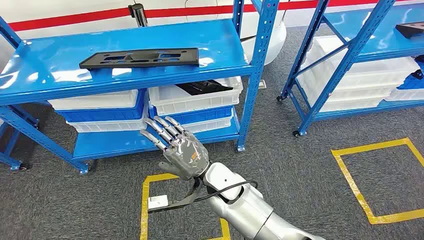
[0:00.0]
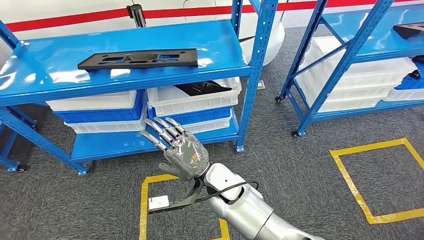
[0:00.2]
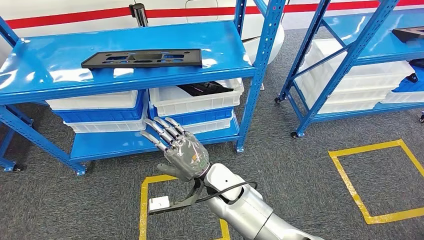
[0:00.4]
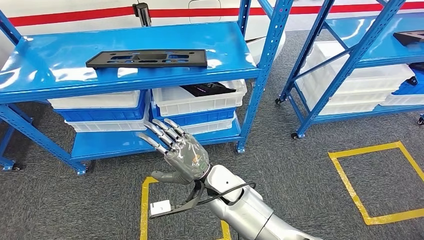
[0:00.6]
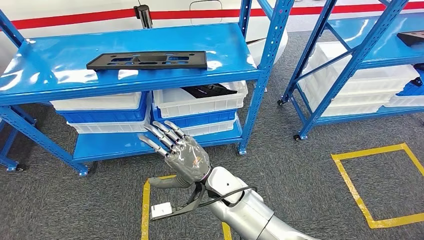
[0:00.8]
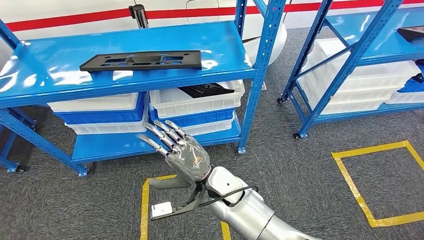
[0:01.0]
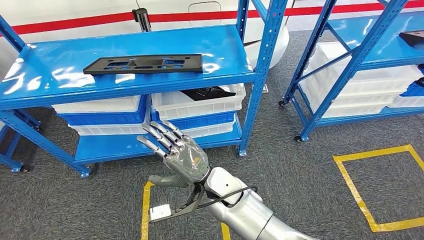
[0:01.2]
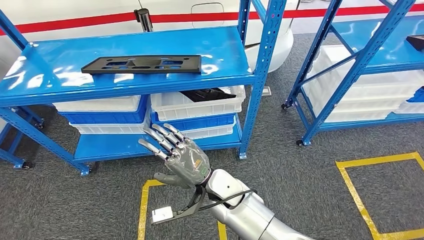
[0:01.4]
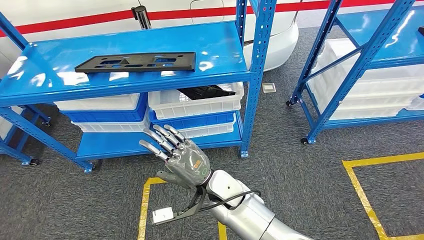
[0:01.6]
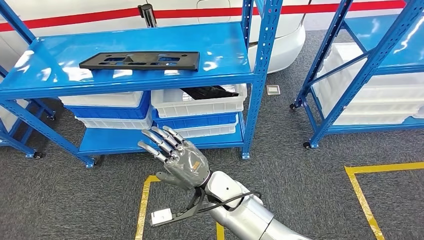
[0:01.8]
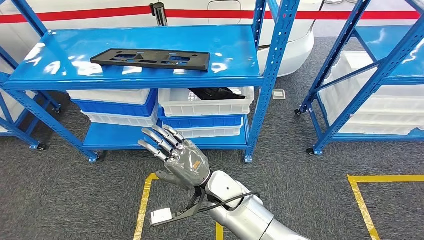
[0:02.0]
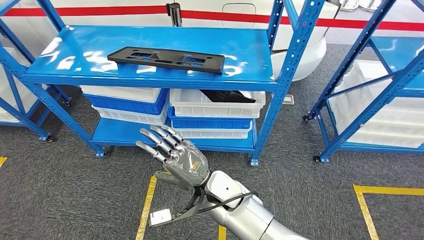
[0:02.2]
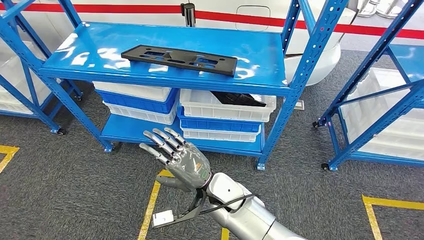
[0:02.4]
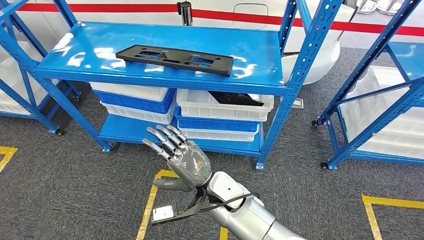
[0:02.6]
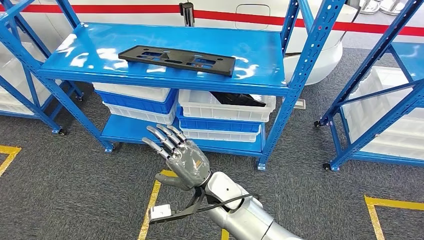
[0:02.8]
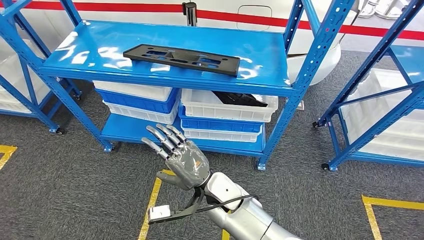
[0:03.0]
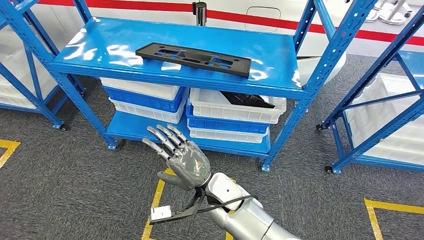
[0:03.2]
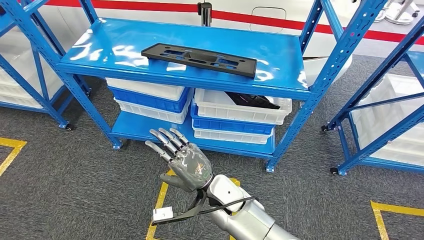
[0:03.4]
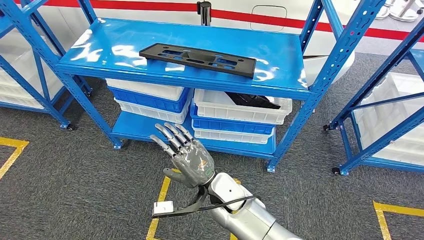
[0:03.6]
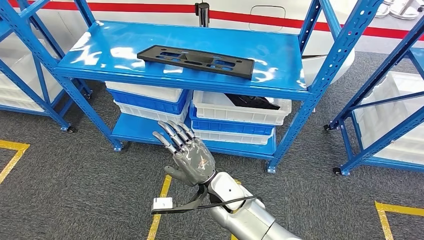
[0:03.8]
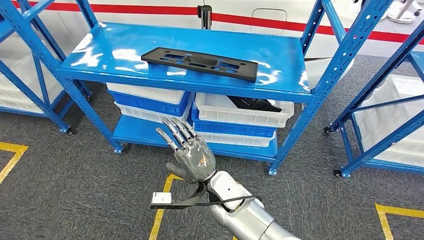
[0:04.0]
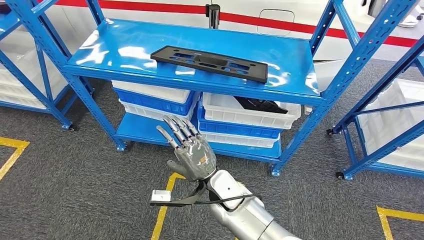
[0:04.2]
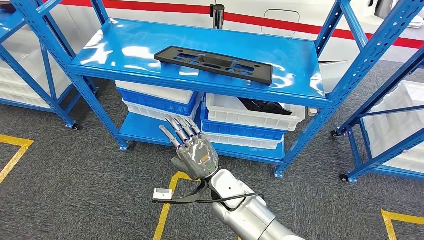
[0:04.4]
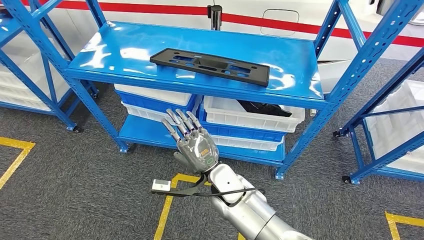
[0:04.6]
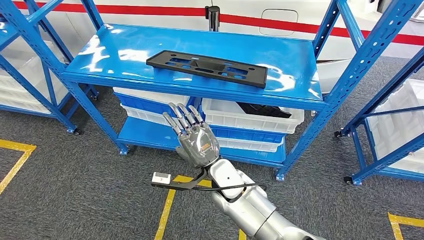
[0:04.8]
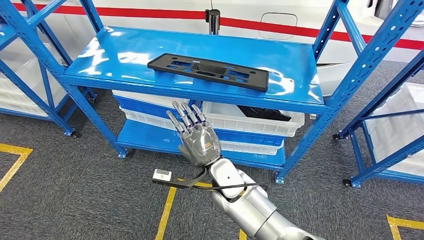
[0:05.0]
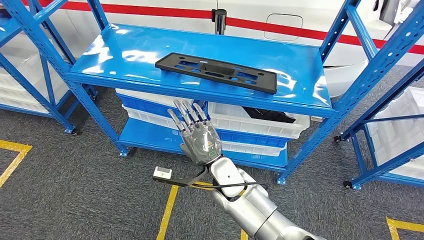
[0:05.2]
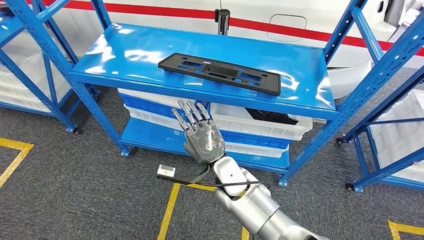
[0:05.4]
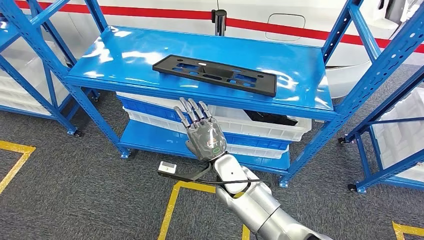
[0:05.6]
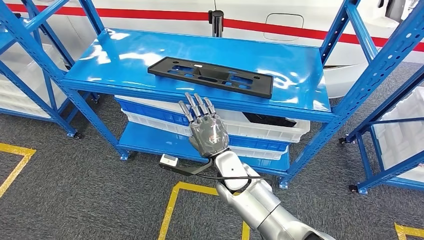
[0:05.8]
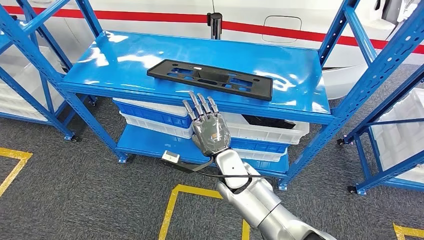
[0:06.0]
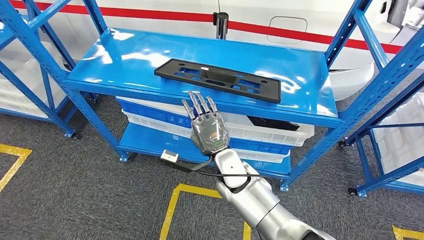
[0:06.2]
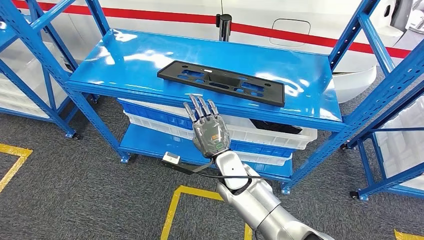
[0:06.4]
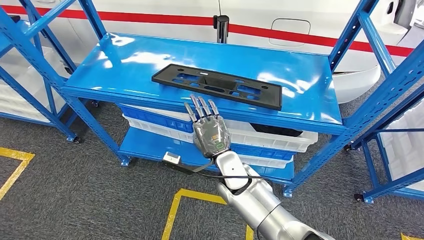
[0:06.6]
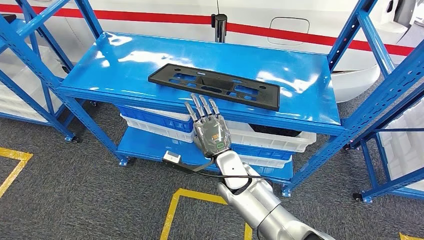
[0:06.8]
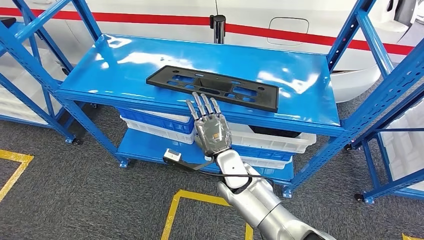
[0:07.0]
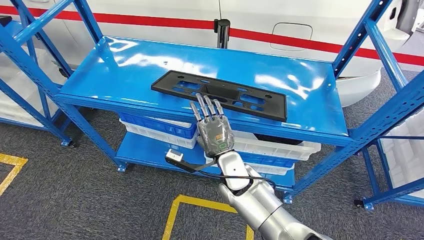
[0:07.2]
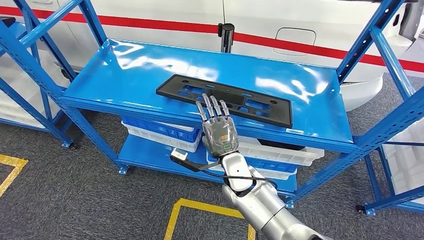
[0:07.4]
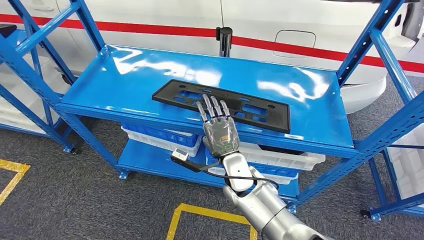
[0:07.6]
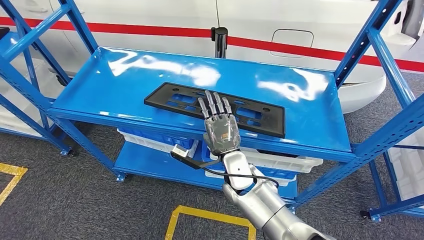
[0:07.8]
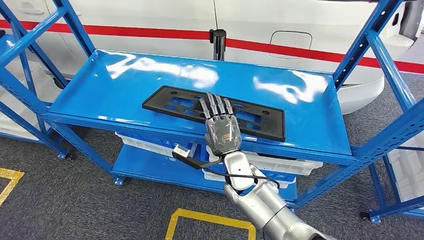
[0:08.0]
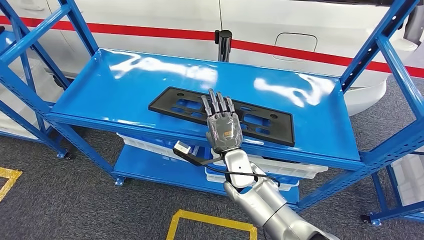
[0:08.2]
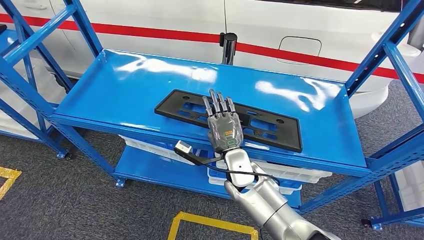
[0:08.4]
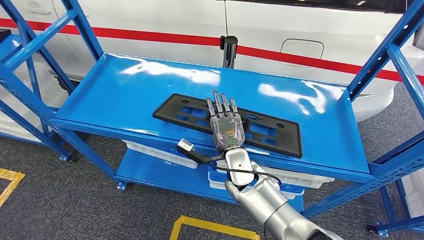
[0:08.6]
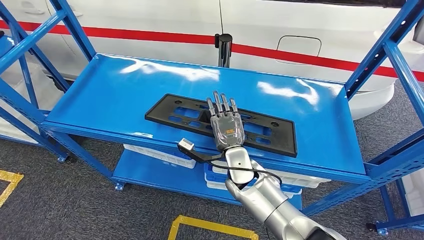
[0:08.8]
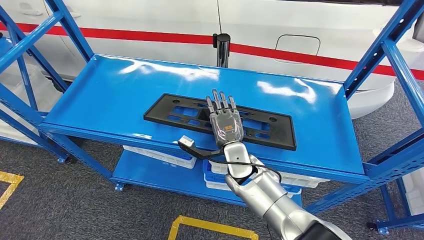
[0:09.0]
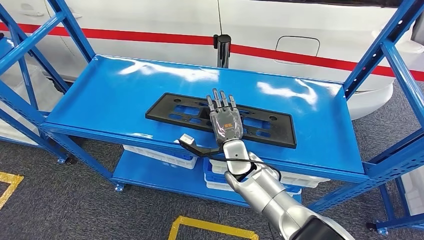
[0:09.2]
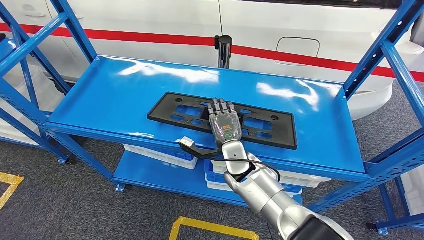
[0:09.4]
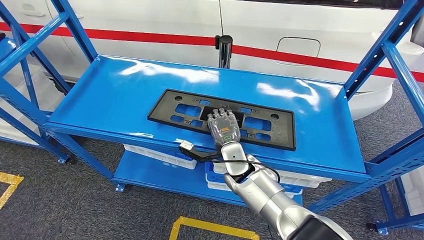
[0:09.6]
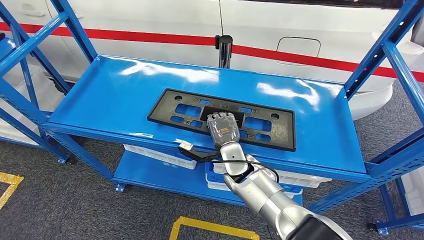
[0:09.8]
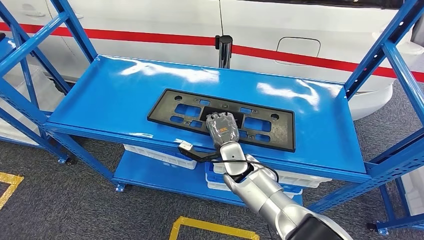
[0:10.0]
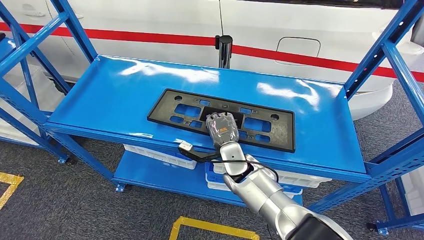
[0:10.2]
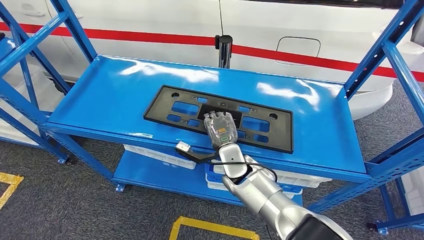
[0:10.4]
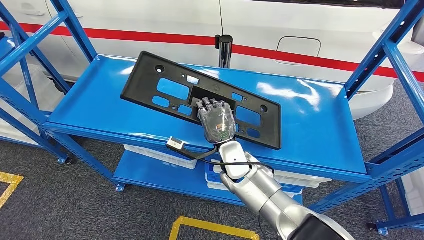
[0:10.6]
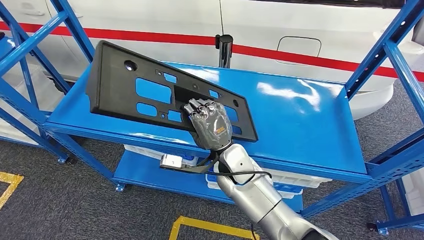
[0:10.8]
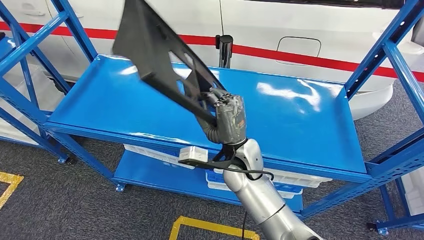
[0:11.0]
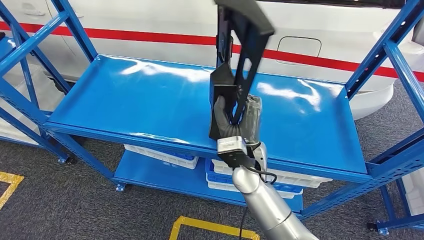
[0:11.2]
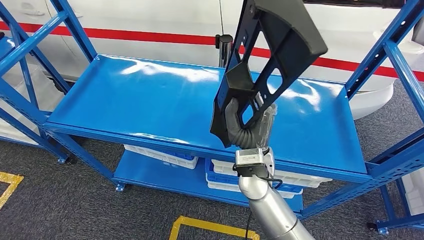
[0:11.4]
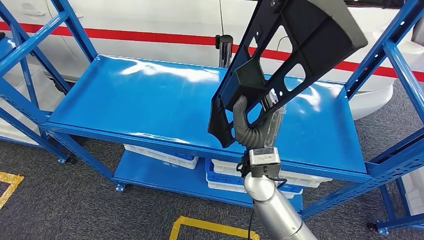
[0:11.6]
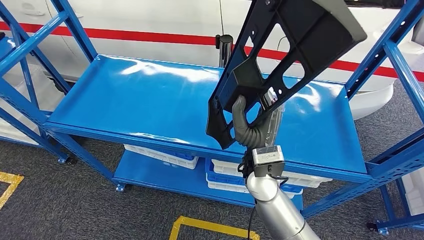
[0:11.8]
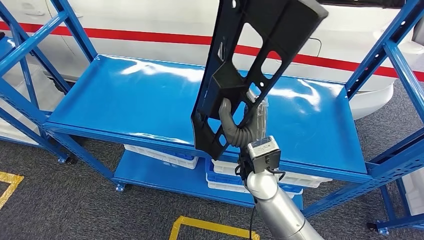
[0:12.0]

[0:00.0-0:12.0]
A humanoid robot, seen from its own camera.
0:09.0 to 0:10.4: There are only small adjustments of the hands.

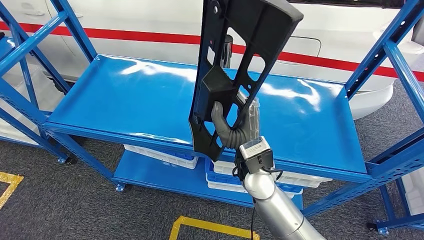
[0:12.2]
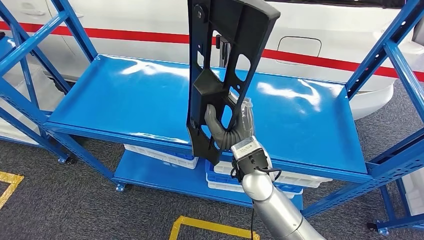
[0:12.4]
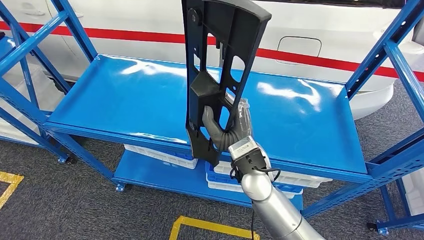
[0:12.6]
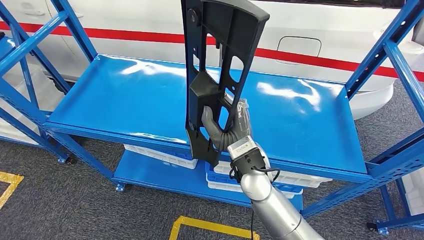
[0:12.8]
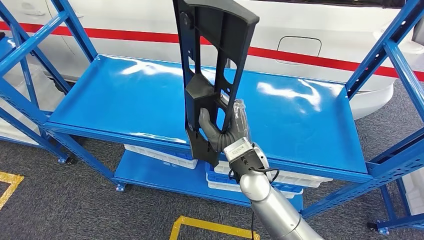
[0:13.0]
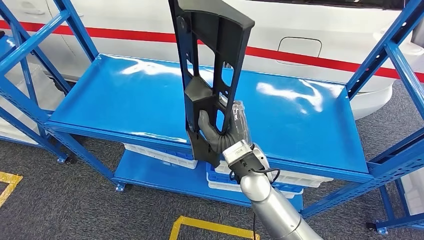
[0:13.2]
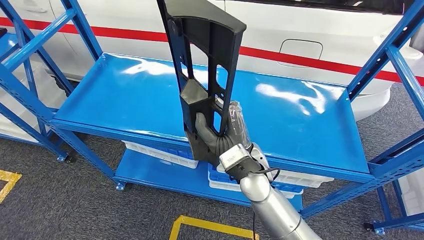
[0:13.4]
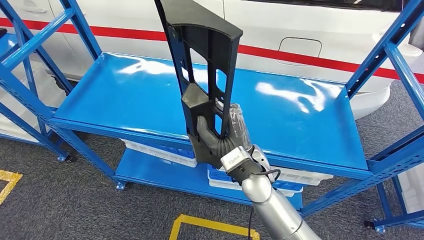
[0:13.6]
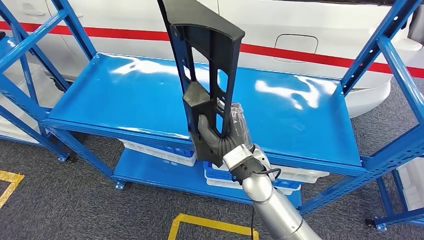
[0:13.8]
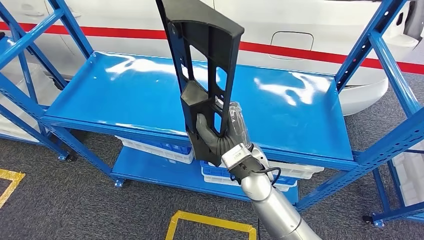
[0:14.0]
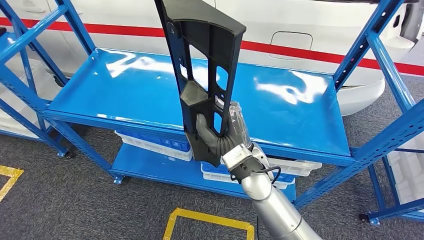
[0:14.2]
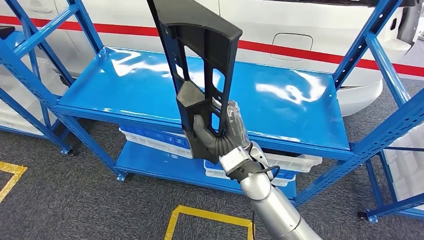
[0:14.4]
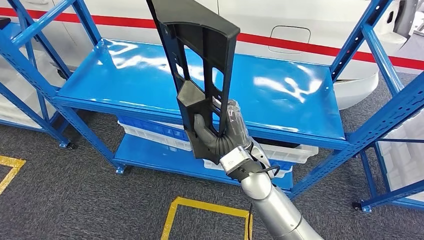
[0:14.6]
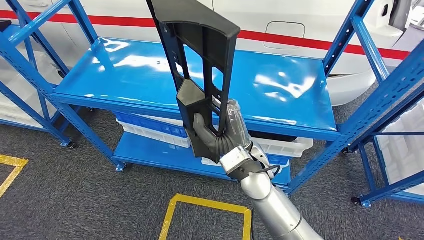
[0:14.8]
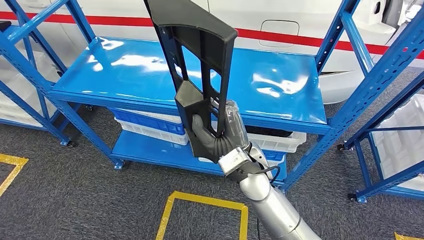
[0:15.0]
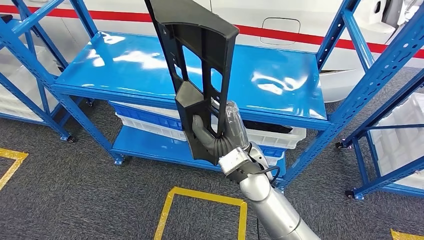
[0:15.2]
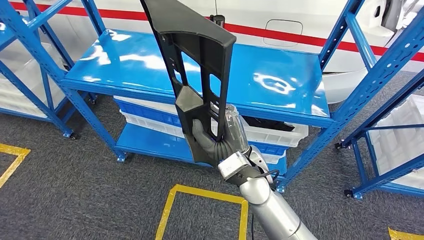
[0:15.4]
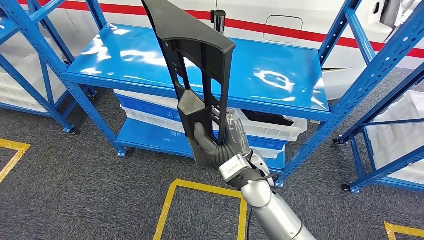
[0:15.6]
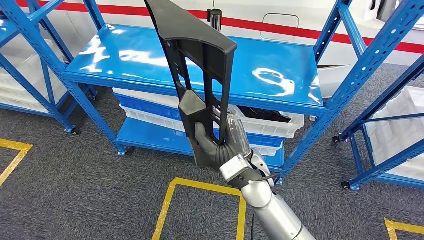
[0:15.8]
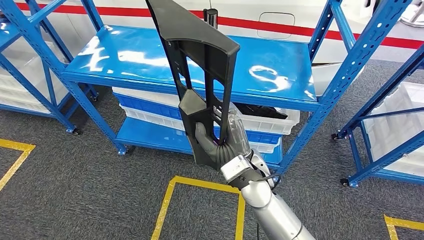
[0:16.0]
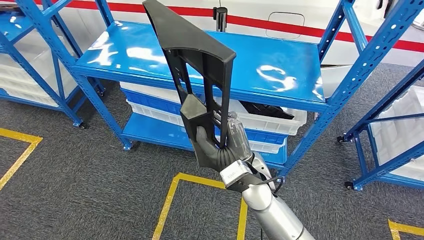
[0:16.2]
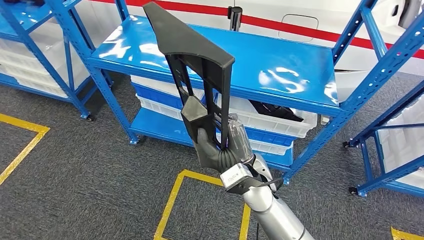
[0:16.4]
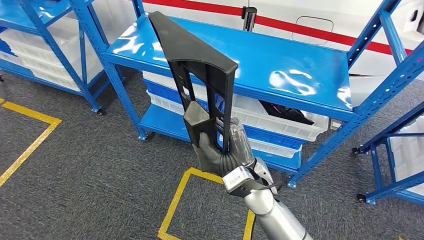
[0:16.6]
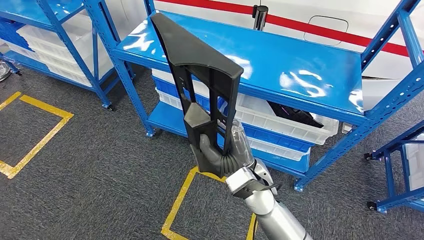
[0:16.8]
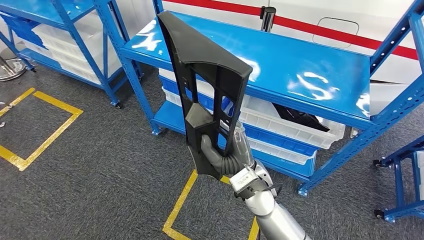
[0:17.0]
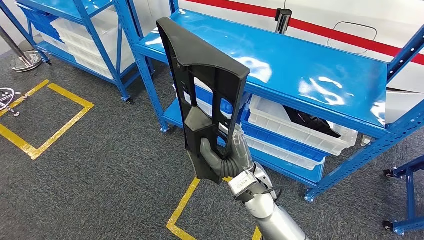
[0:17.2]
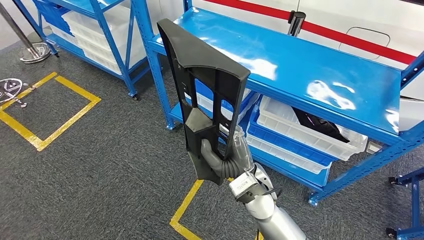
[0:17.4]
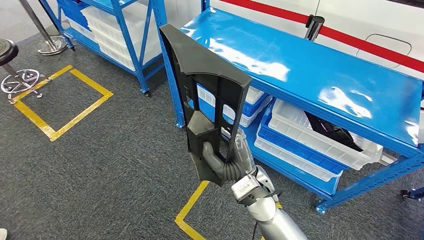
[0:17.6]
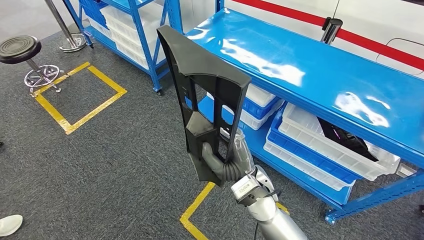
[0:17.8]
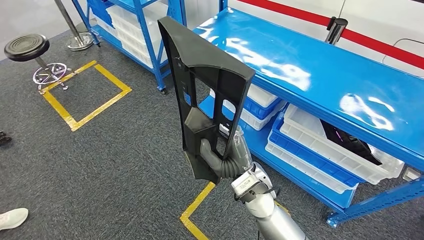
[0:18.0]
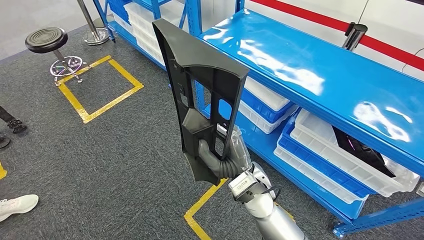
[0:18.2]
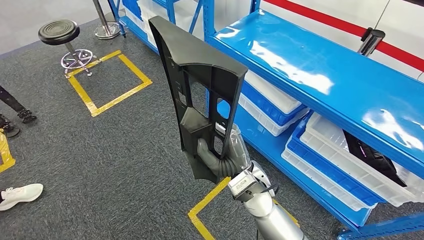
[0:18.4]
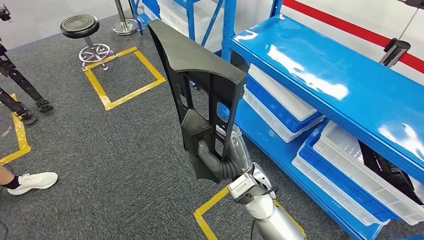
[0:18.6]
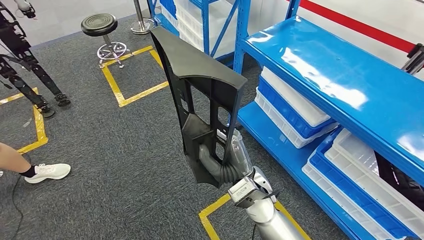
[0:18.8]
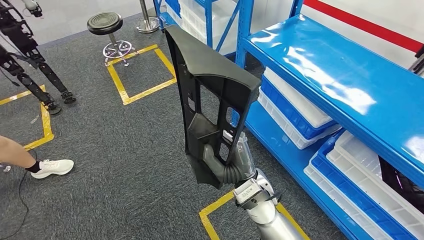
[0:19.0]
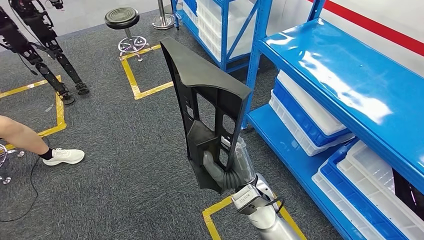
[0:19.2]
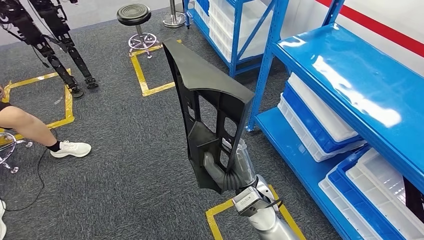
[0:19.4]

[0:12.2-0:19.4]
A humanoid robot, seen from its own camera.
Step, 0:12.2 to 0:14.8: Pick up the large material from the shelf.
